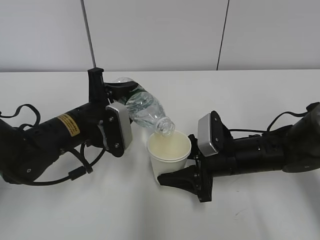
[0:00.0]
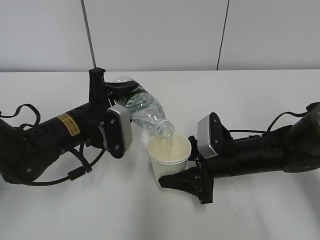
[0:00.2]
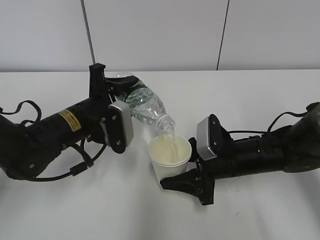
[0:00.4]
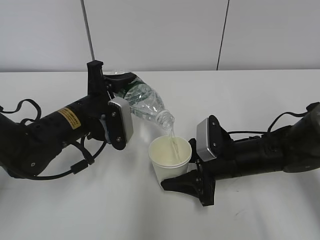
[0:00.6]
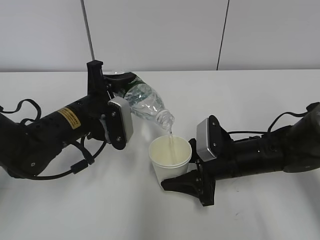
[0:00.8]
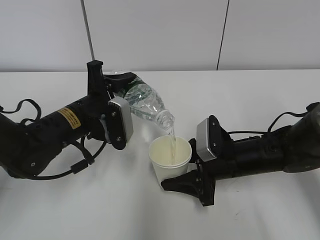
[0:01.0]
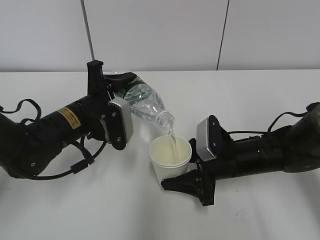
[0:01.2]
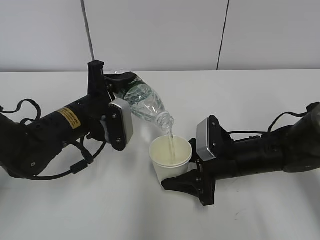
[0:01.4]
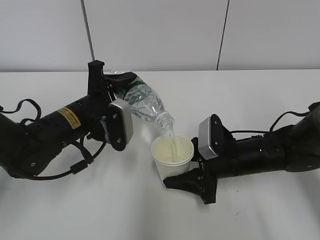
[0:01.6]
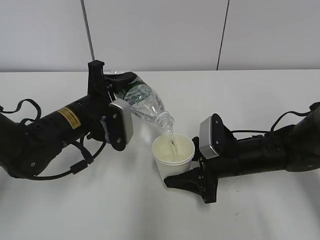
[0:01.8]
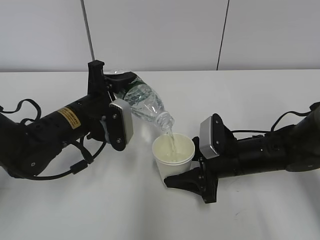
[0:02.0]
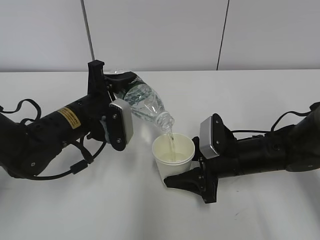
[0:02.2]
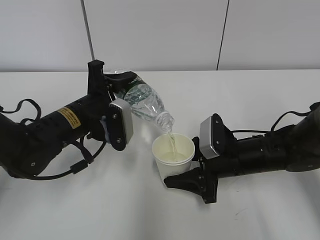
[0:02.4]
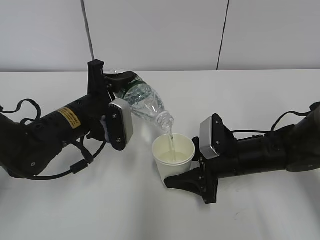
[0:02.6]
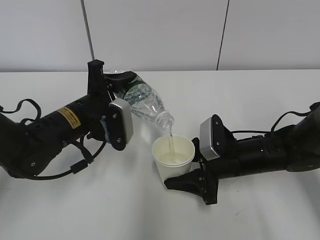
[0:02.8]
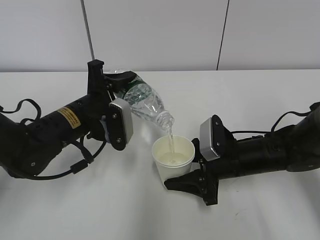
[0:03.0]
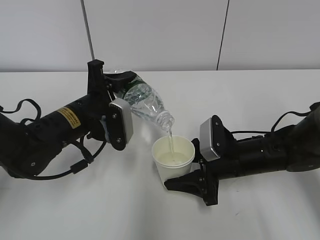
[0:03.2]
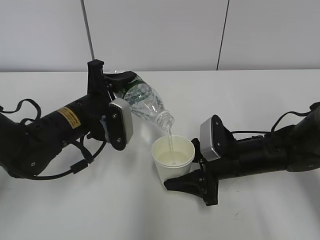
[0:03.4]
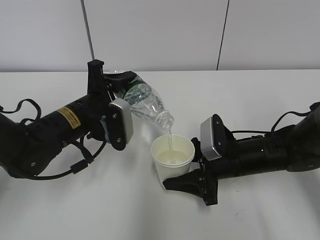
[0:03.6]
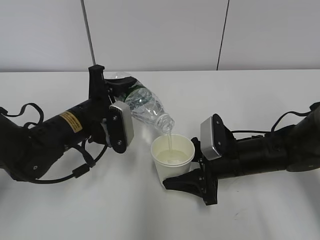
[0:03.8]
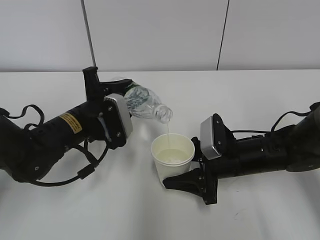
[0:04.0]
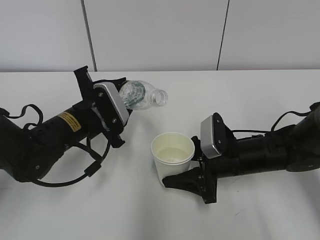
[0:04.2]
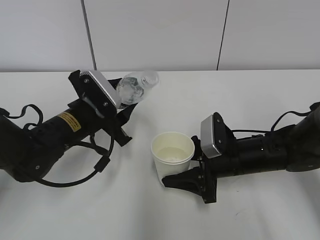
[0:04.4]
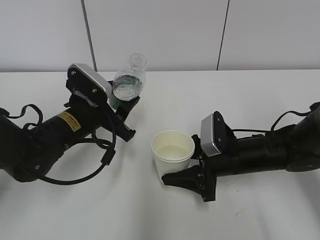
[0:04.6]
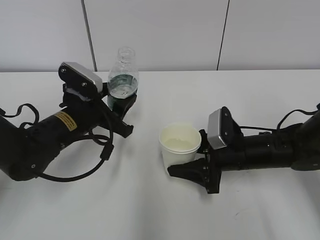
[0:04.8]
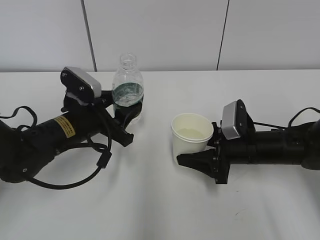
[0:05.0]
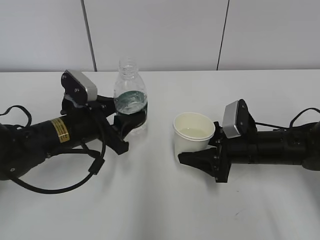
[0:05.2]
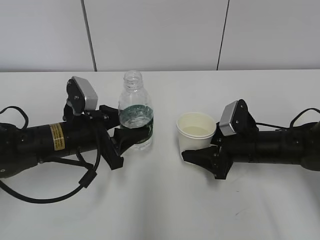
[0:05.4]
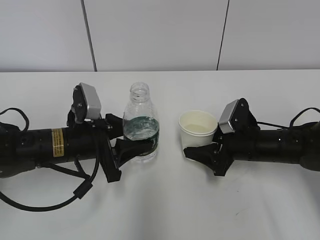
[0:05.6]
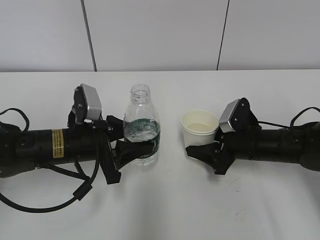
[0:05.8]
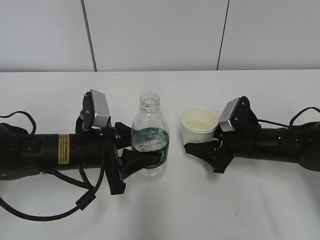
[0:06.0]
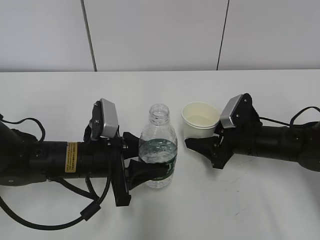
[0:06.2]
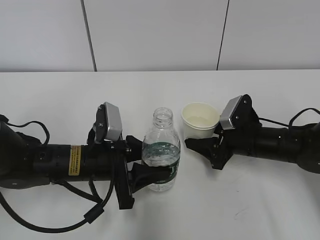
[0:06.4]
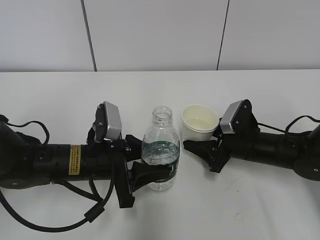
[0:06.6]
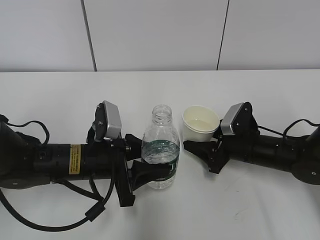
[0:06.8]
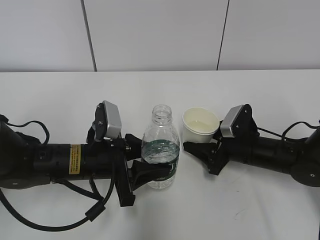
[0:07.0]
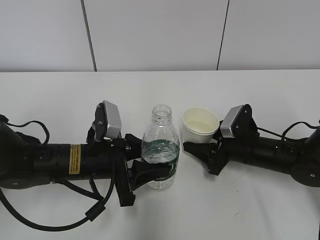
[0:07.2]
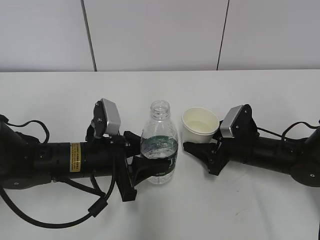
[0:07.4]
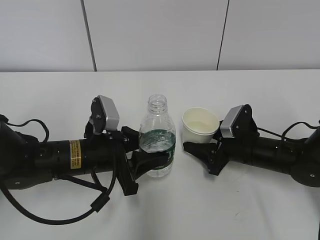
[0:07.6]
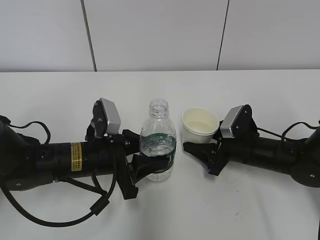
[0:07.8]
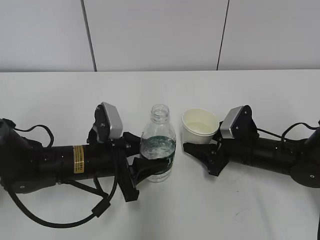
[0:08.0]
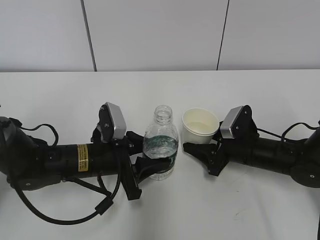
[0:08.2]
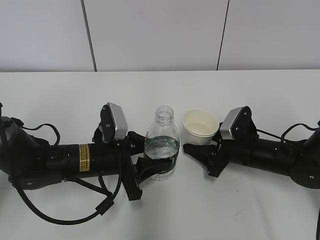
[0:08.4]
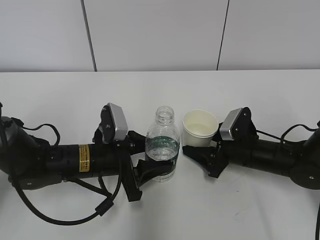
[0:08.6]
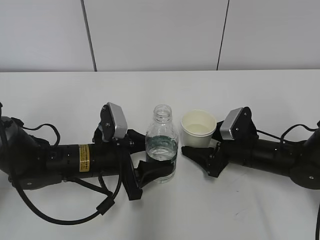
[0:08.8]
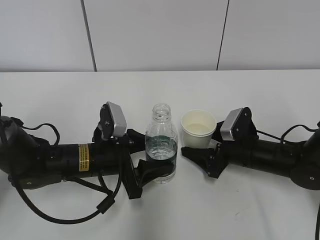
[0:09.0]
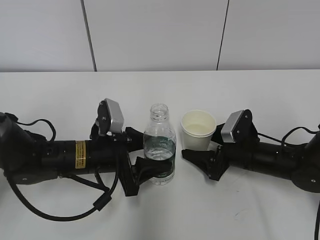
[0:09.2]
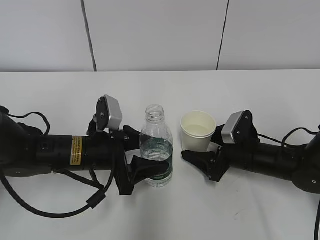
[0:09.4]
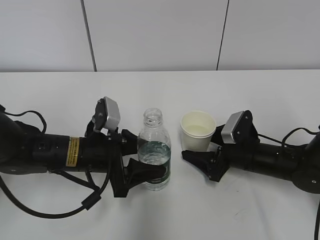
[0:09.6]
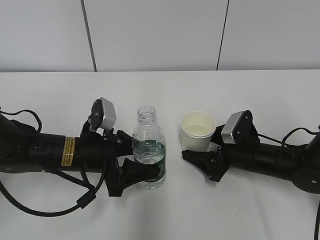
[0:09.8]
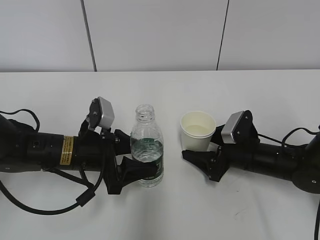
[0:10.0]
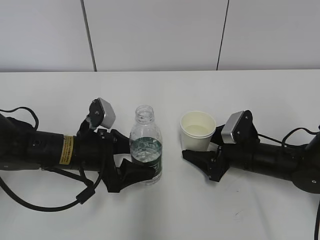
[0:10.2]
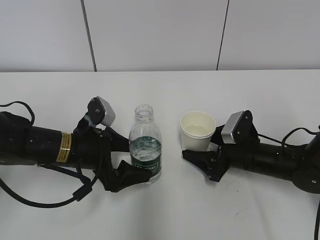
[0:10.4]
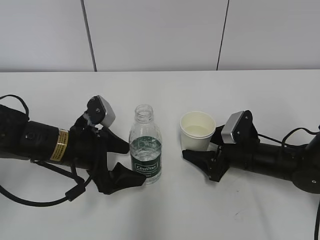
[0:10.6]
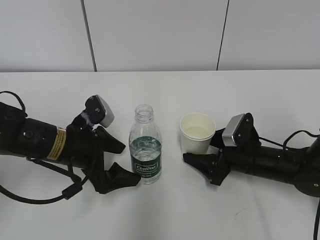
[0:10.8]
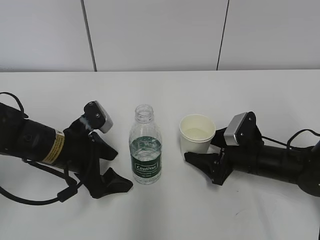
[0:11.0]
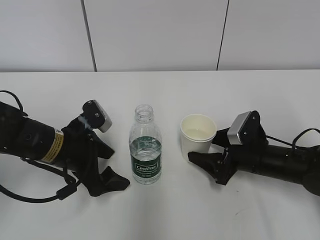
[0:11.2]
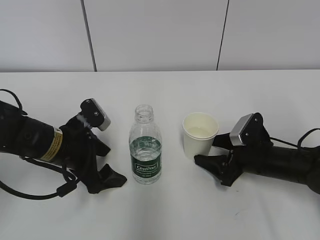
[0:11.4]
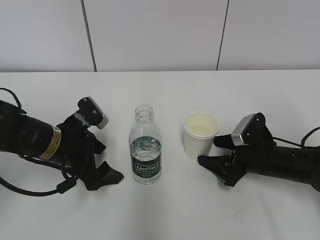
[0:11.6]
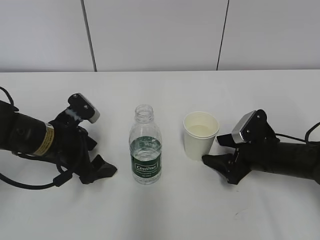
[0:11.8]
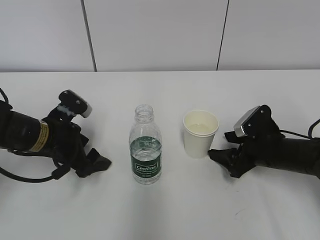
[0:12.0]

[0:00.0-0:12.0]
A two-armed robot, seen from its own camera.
Step, 0:01.6 to 0:05.8: Place the water bottle with the left hand.
Step, 0:06.0 to 0:07.2: Place the paper cup with the right hand.
0:00.0 to 0:01.6: The grippers move only a little.
0:01.6 to 0:03.0: Both grippers stay put.
0:04.4 to 0:06.0: The right gripper shifts by roughly 5 cm.
0:06.0 to 0:07.6: The grippers make only small movements.
0:07.6 to 0:09.0: The right gripper opens up. The left gripper opens its fingers.
0:09.0 to 0:10.4: The left gripper opens.
0:10.4 to 0:12.0: The left gripper goes some 5 cm to the left.

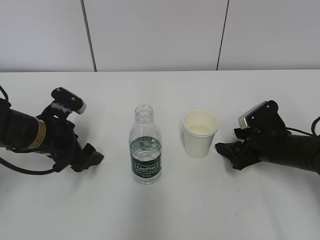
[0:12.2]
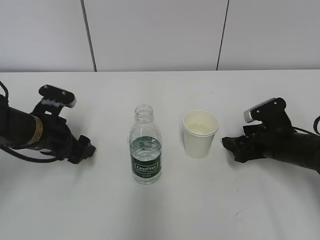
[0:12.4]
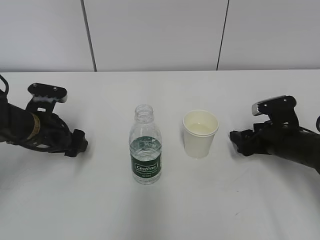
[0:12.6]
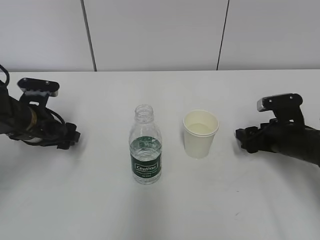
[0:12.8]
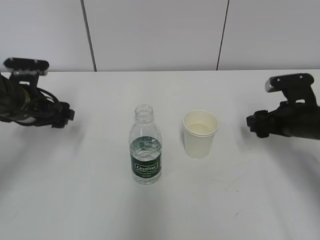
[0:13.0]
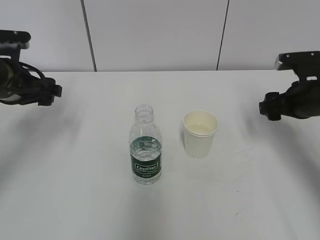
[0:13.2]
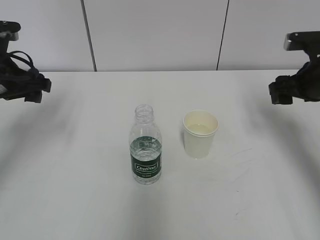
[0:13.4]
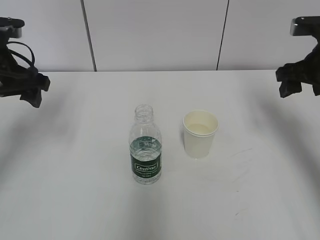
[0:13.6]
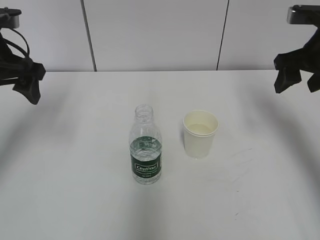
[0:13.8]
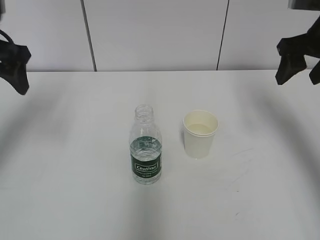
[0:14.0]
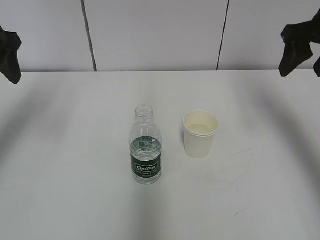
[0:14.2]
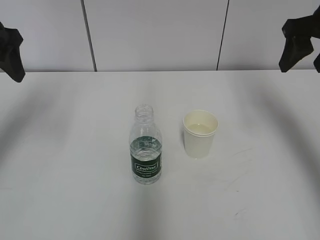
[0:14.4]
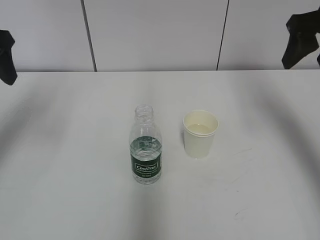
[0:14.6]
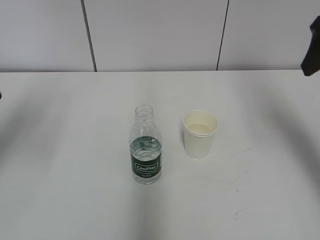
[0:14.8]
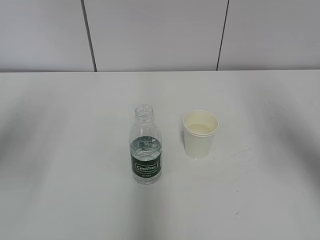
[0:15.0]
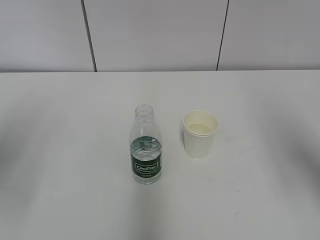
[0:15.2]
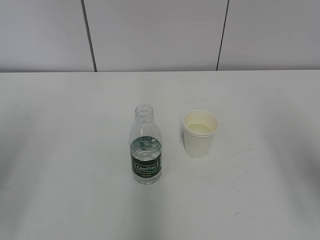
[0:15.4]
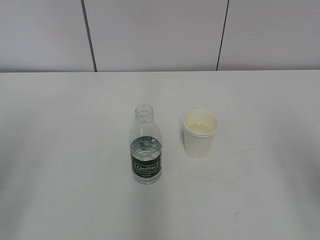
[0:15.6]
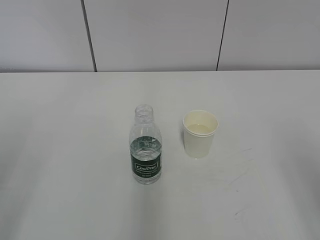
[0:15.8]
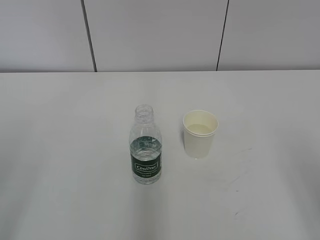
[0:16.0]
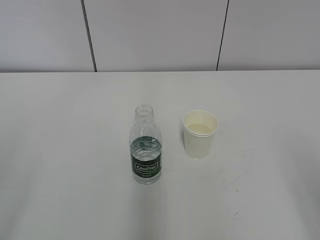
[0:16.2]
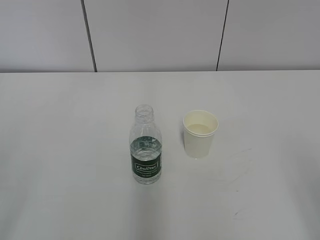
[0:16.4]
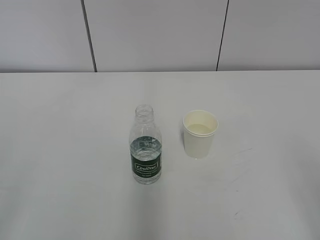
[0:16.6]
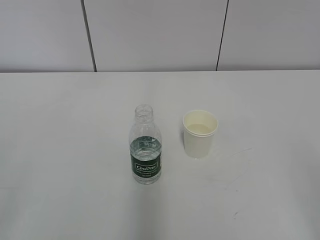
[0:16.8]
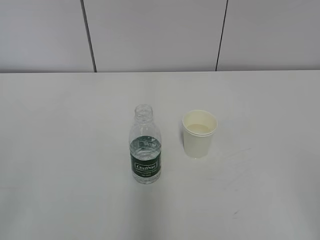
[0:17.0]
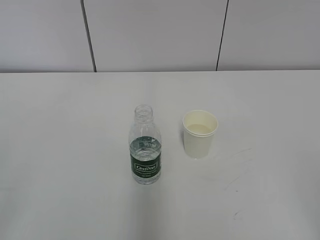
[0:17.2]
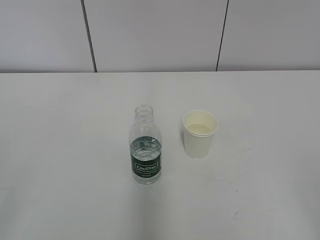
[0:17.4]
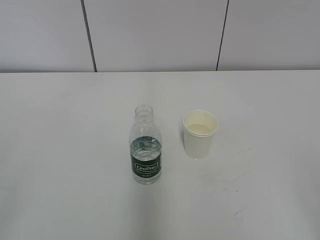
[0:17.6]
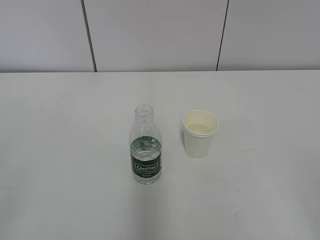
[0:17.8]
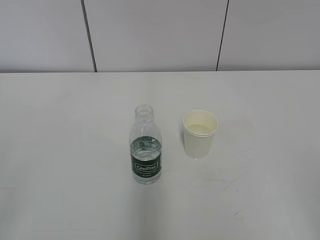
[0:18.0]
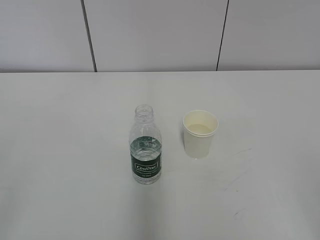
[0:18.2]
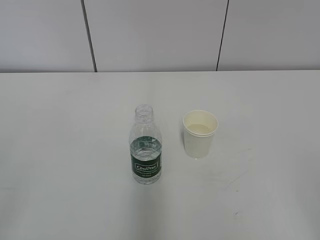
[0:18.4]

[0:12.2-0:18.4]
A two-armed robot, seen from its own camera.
0:12.2 to 0:13.8: Both grippers travel together upward, roughly 20 cm.
0:13.8 to 0:15.4: The two grippers go about 20 cm backward.
0:15.4 to 0:16.8: The right gripper heads backward and downward, covering some 15 cm; the left gripper goes roughly 15 cm backward.

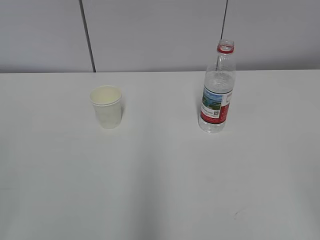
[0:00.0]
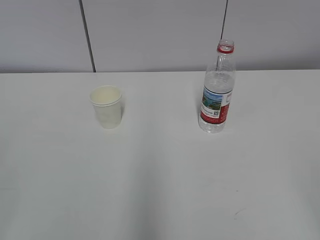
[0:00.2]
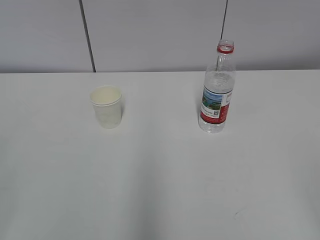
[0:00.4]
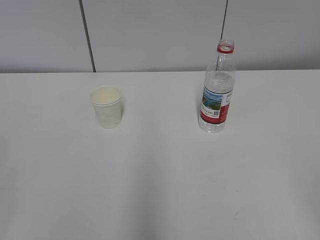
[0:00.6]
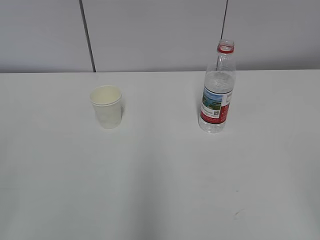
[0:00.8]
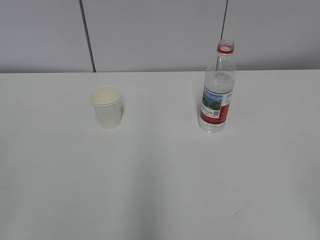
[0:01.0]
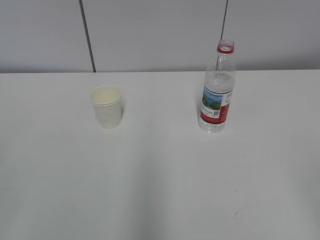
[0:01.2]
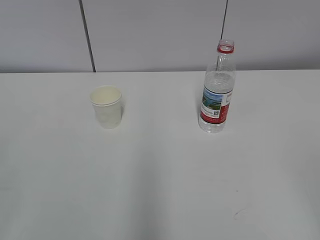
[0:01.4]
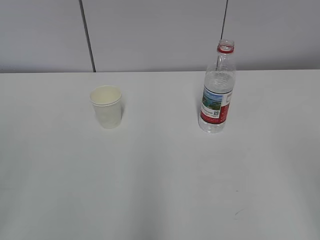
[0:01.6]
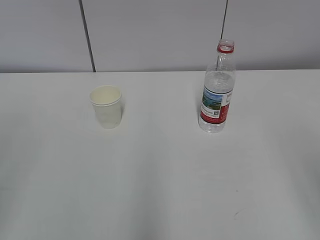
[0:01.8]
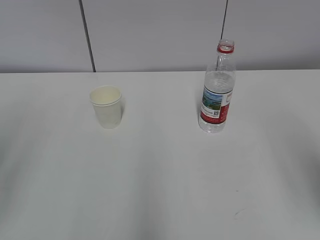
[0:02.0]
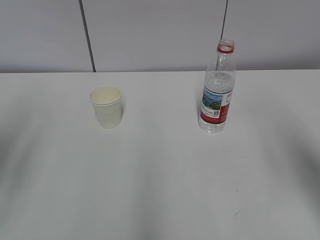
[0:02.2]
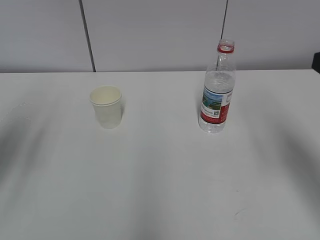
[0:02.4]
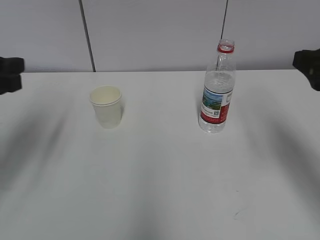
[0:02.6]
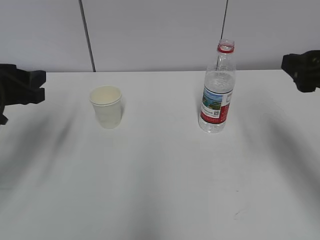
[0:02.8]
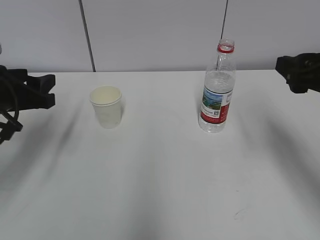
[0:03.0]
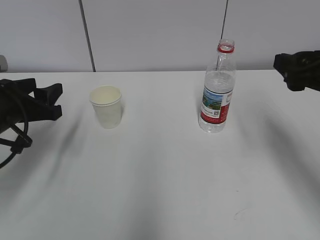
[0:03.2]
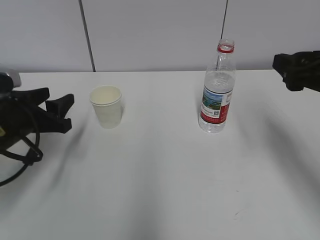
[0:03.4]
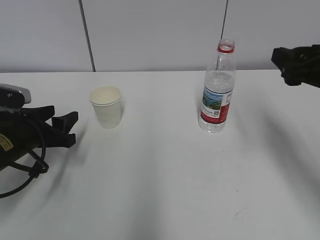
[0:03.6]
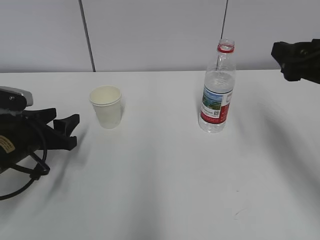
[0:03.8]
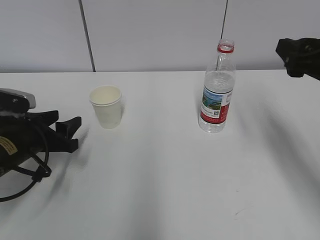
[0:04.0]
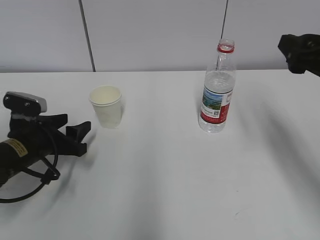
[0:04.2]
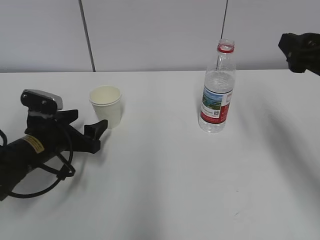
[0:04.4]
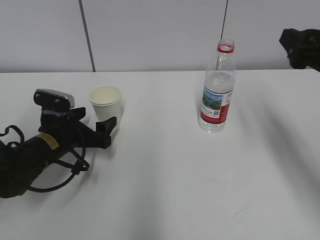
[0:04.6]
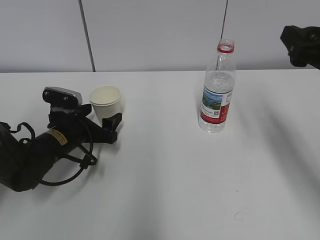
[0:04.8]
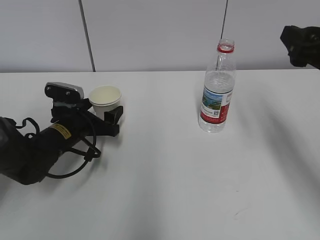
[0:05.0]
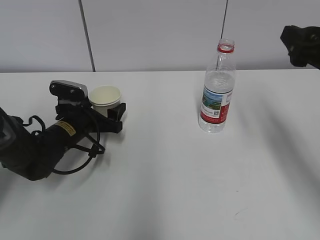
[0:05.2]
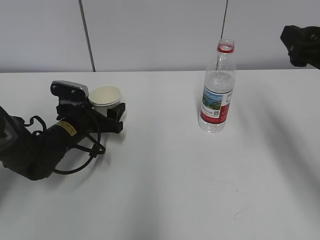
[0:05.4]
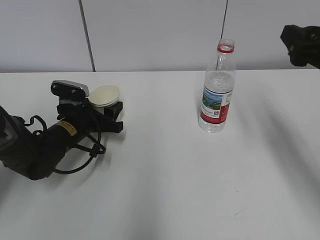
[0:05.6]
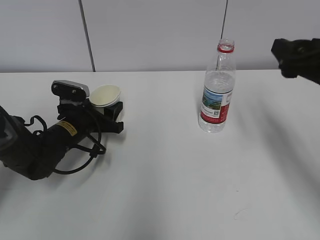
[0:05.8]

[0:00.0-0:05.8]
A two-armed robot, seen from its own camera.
Step, 0:00.0 to 0:04.6: Grab the paper cup with the left hand.
0:01.4 to 0:02.8: The grippers both shift forward by about 25 cm.
0:02.8 to 0:04.4: The left gripper shifts about 15 cm downward, and opens.
0:04.4 to 0:05.8: The left gripper goes roughly 5 cm forward, and closes up.
